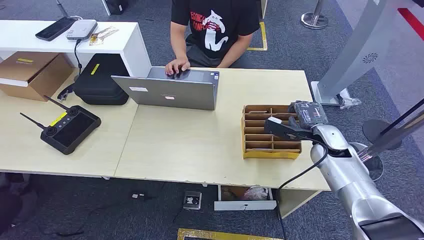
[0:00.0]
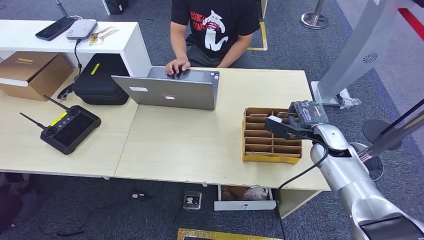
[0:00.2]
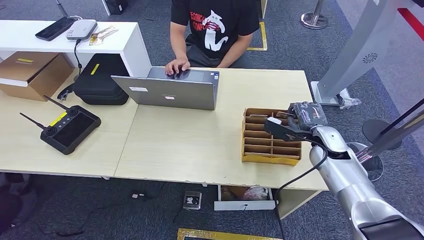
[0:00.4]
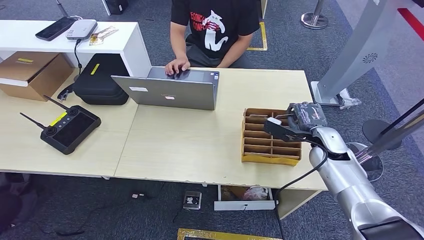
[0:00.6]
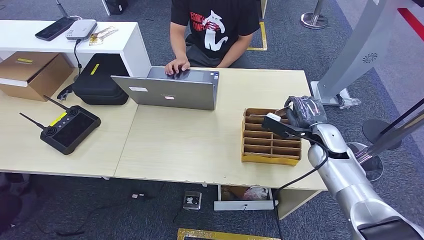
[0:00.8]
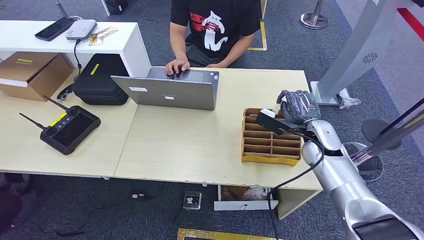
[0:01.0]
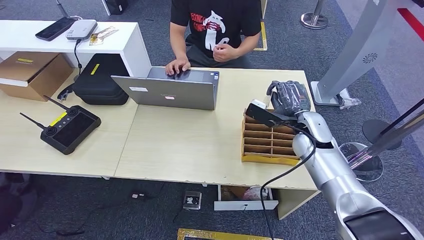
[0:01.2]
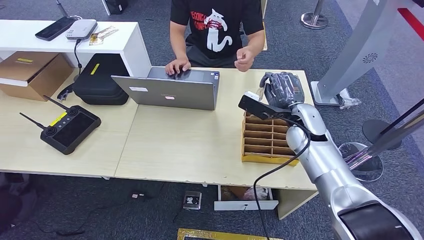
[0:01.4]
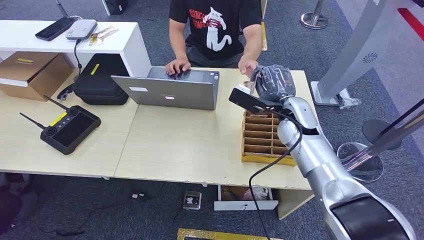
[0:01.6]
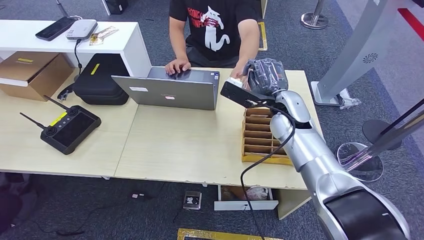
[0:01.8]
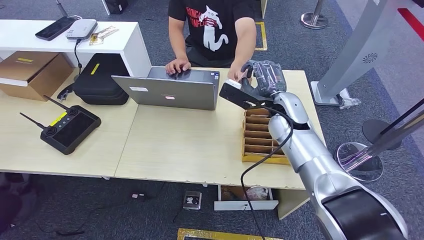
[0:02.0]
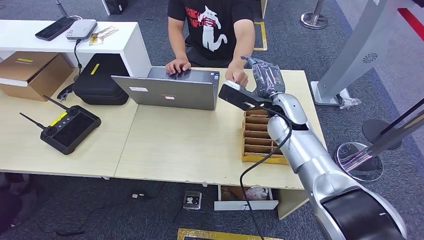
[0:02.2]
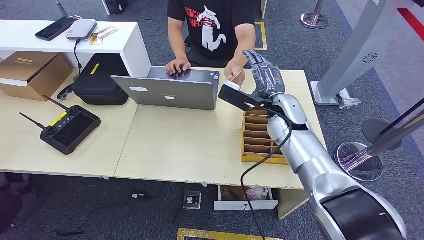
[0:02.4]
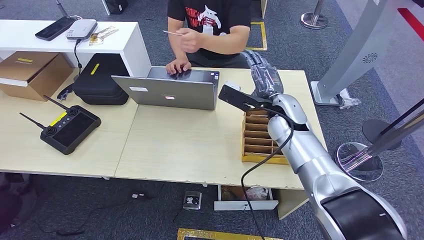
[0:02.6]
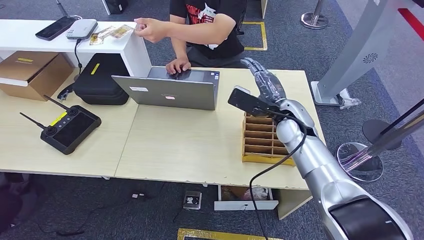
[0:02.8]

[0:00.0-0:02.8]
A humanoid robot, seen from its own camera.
Step, 0:00.0 to 0:01.0: Pick up the key card from the card box.
Step, 0:01.2 to 0:02.8: Hand the key card to the target.

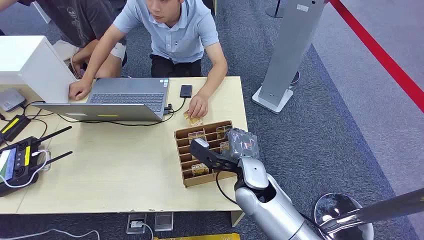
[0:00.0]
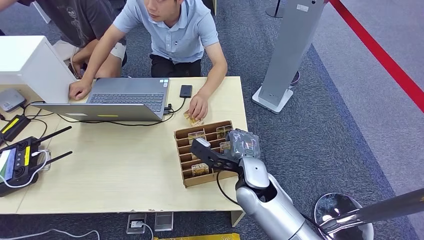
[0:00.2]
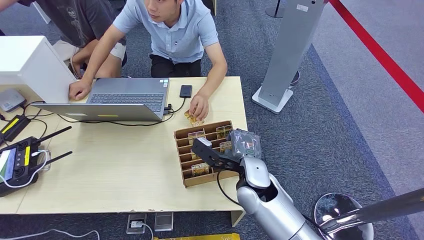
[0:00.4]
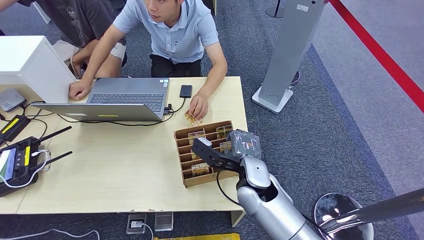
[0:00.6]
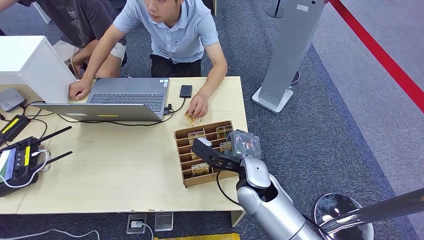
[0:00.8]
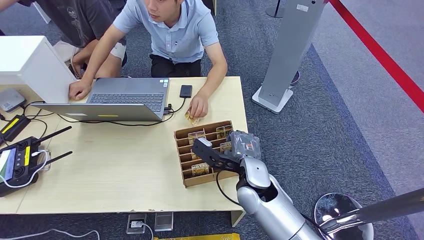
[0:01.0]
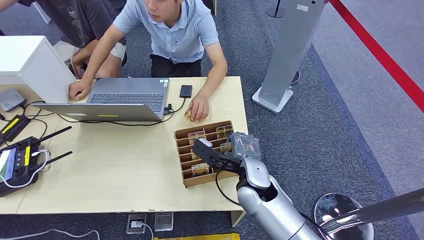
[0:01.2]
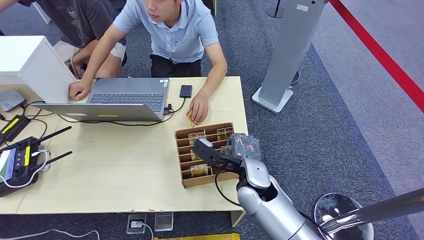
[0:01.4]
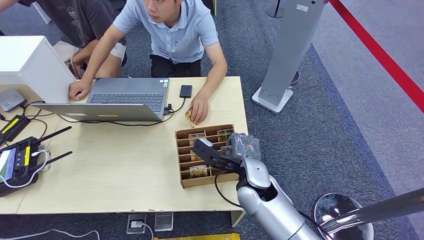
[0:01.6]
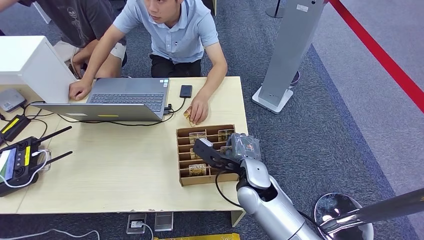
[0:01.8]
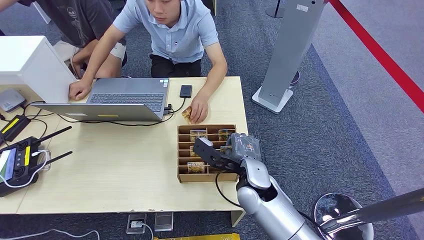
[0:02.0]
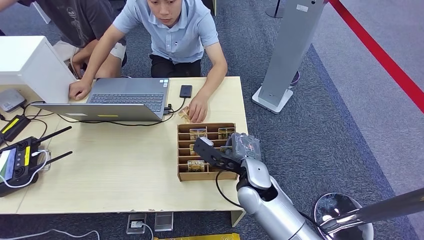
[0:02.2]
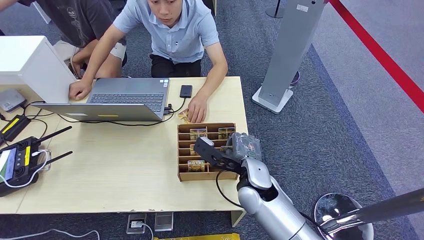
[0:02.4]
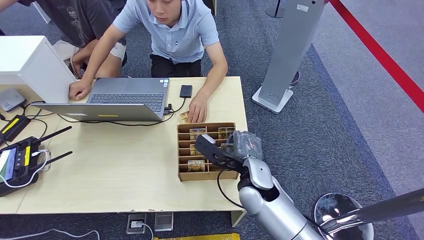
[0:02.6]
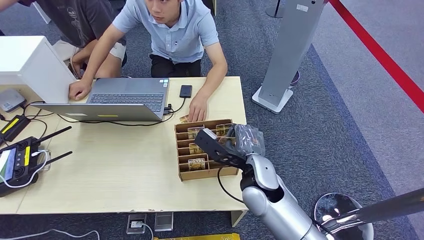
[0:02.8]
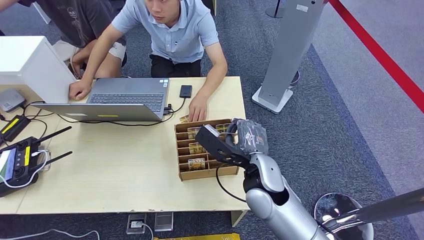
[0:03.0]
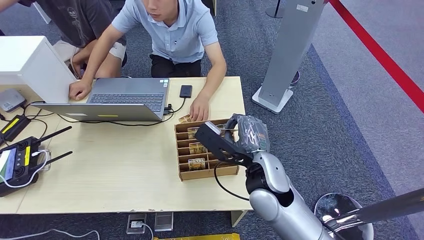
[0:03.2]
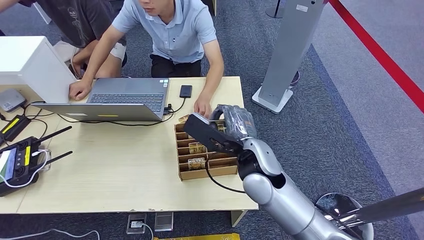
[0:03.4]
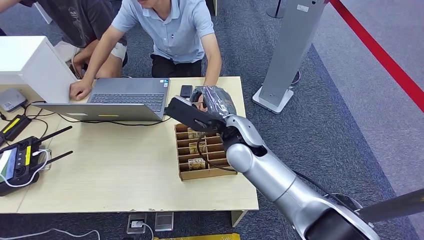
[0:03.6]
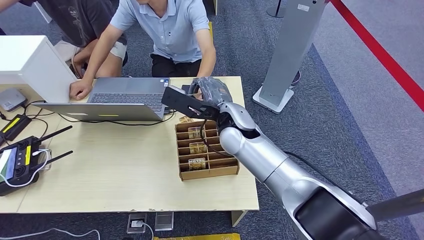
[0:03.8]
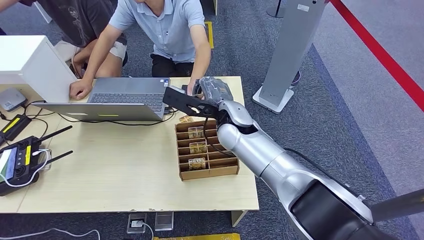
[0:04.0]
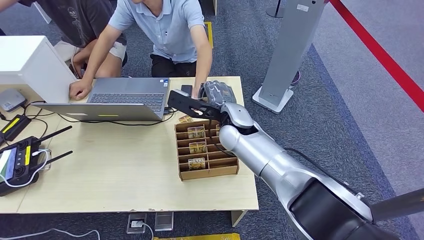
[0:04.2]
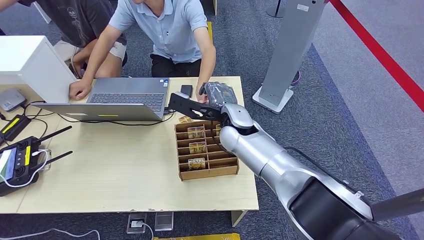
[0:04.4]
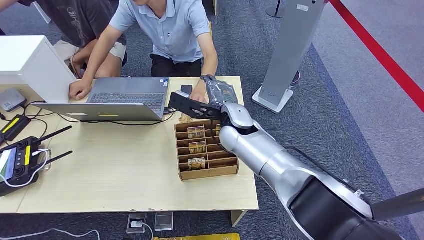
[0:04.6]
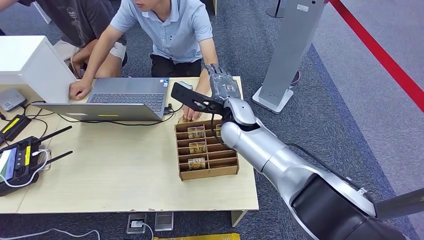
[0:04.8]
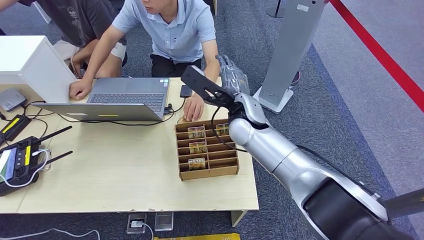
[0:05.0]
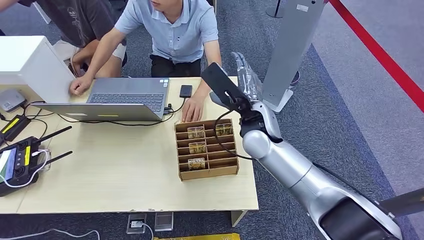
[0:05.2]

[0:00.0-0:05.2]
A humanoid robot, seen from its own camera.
Step, 0:00.0 to 0:03.4: Pick up the key card from the card box.
Step, 0:03.6 to 0:05.0: Hand the key card to the target.
0:01.8 to 0:03.4: The right hand shifts roughly 10 cm upward.
0:03.4 to 0:05.2: The right hand moves forward, some 10 cm.
